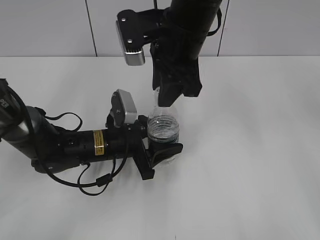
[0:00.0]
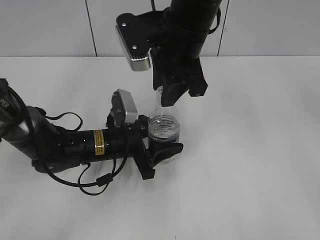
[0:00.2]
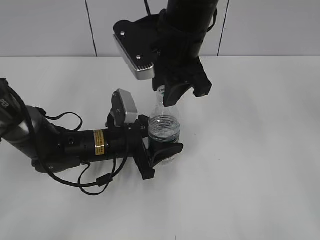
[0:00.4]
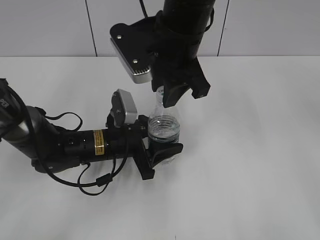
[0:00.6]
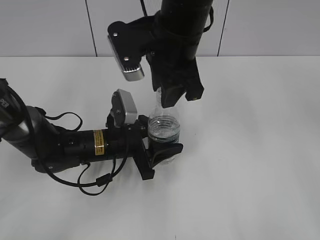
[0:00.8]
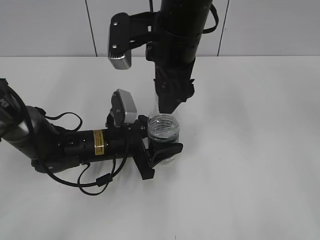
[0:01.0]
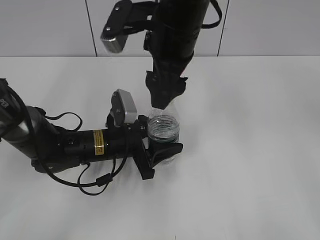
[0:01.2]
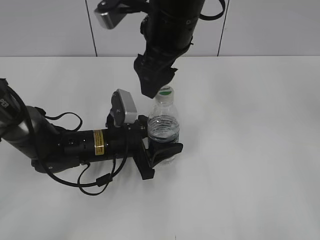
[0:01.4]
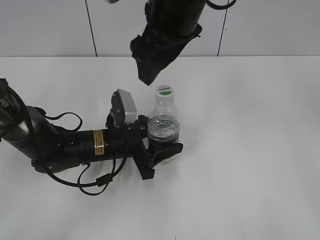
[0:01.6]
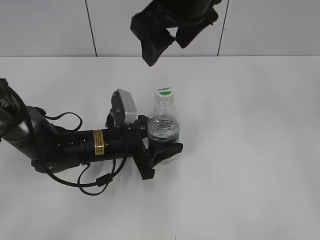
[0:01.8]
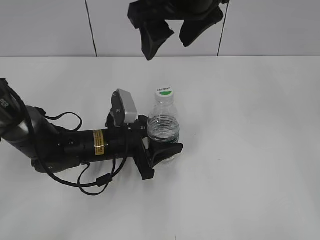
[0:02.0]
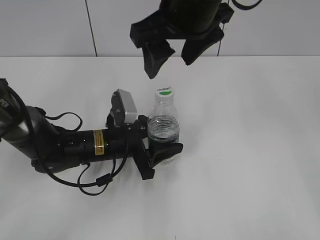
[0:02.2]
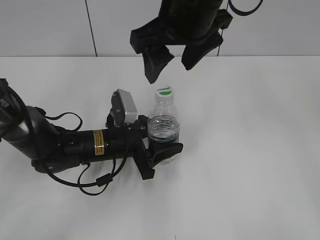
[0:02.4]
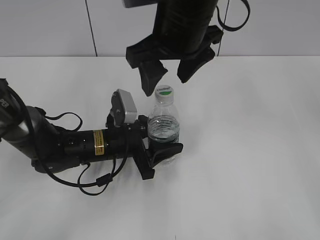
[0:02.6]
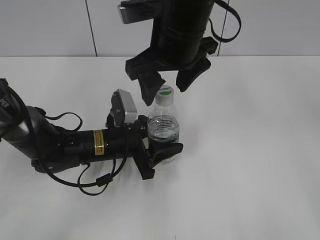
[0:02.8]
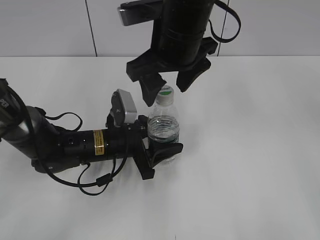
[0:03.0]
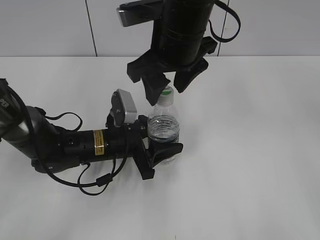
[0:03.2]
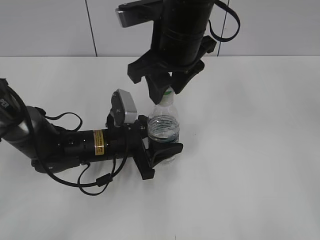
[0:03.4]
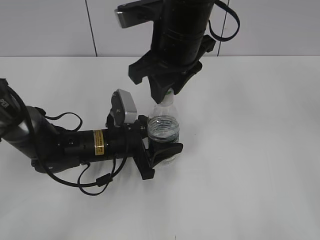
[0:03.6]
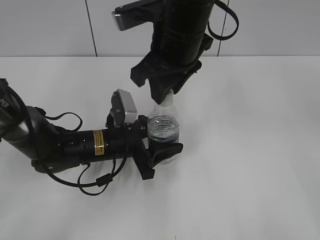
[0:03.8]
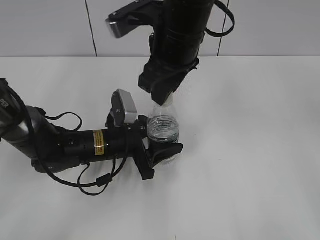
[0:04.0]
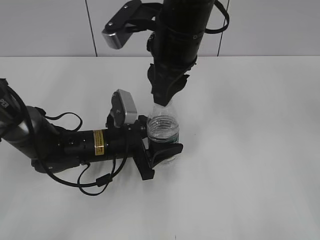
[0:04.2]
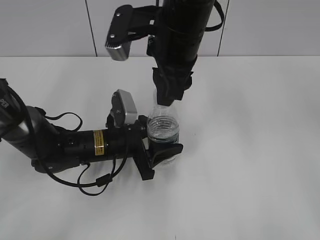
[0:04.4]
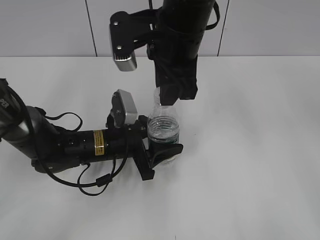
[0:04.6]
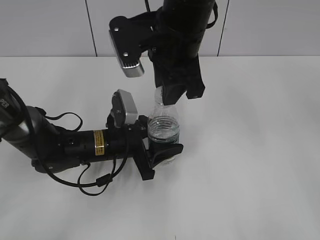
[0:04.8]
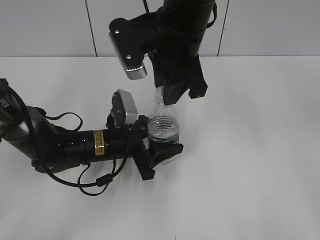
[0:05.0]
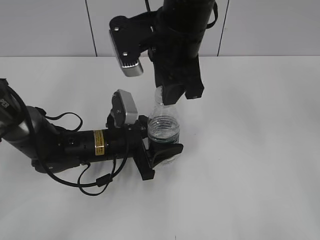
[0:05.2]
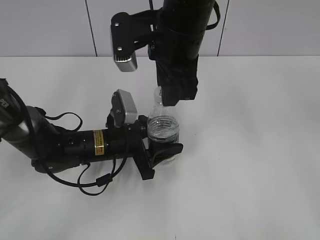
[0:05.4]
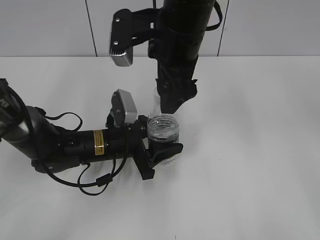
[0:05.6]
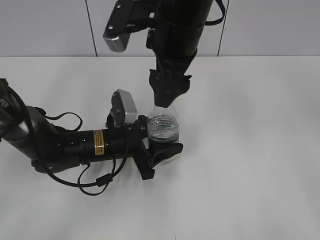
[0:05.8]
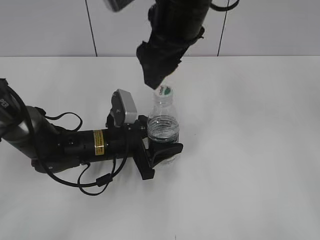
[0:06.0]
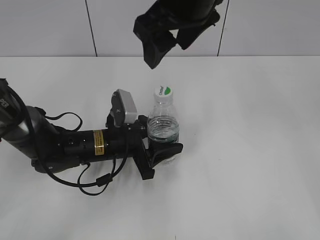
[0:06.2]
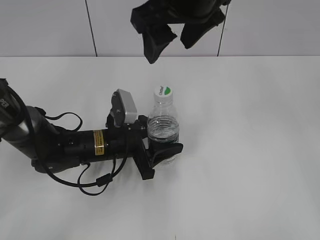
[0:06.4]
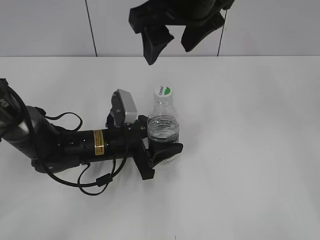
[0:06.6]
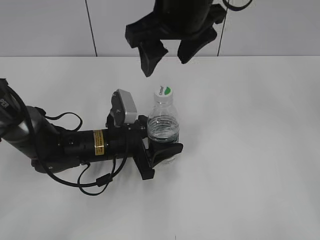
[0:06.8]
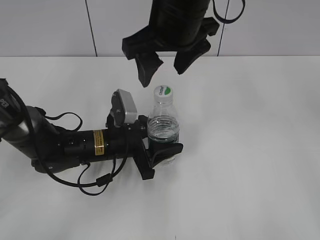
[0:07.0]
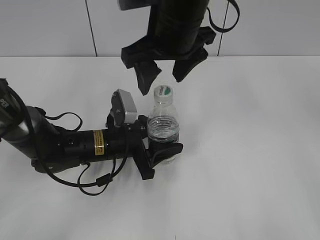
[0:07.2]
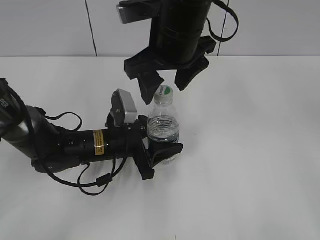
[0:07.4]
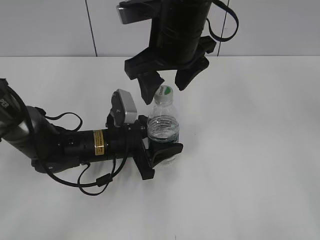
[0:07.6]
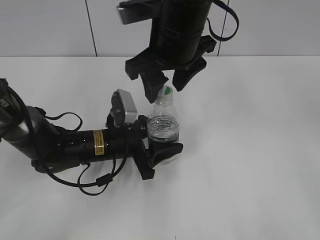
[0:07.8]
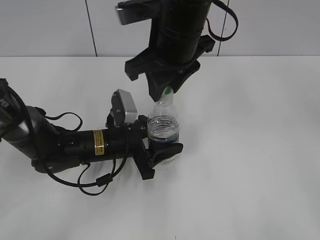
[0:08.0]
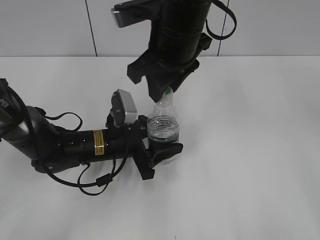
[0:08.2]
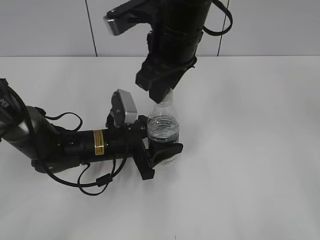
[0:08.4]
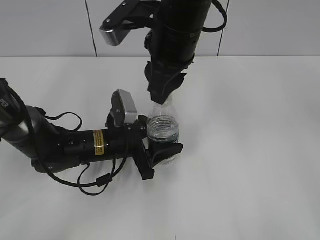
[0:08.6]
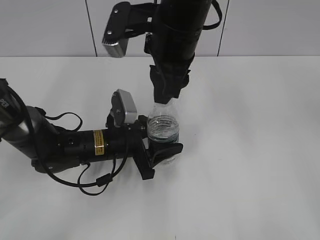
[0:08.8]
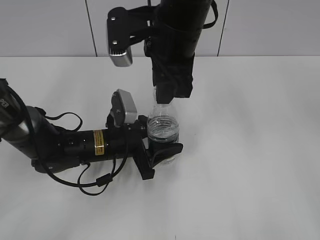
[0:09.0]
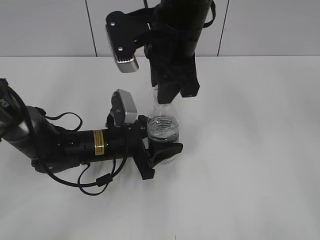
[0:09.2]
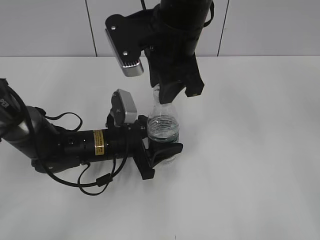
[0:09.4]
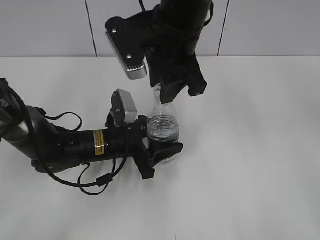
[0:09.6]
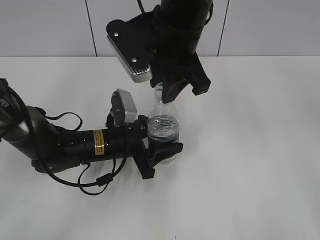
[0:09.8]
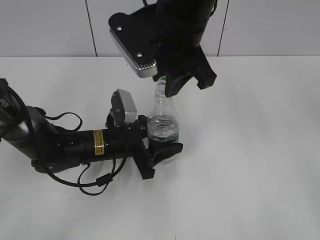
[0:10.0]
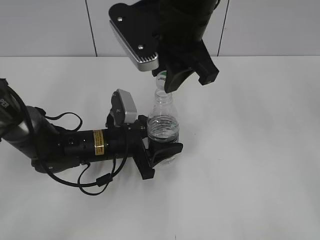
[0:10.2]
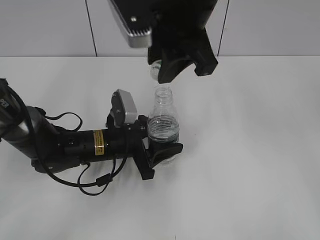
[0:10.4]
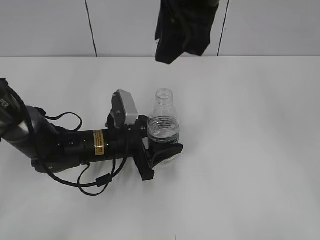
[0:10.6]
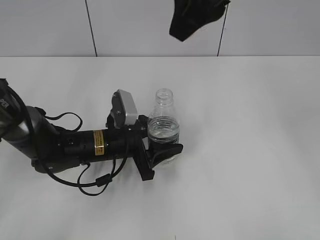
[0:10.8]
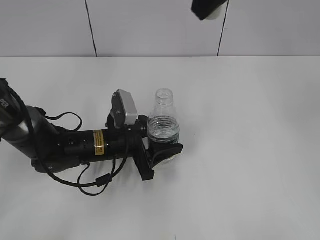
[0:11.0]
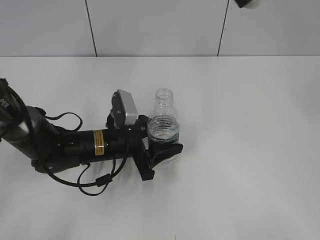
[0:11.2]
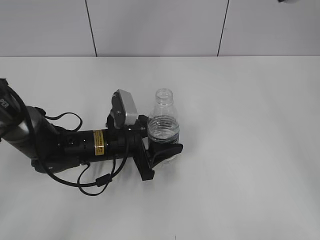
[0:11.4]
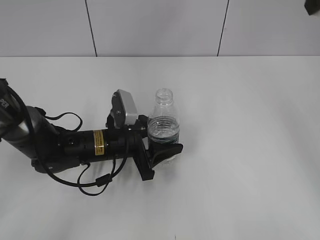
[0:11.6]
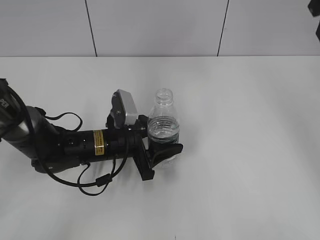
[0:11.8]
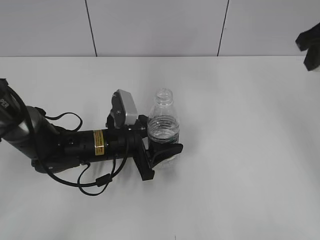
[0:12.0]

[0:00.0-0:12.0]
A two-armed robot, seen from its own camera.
Step, 0:00.0 to 0:10.2: Unscrew the bottle cap with the right gripper while holding the bottle with the left gripper.
0:00.0 to 0:01.6: The right gripper opens.
0:03.0 to 0:04.4: The right gripper closes its fingers.
0:04.4 to 0:06.0: The right gripper opens.
0:07.6 to 0:09.0: The right gripper closes.
0:09.0 to 0:10.4: The right gripper changes place by approximately 5 cm.
0:10.4 to 0:12.0: The right gripper travels to the right by about 25 cm.

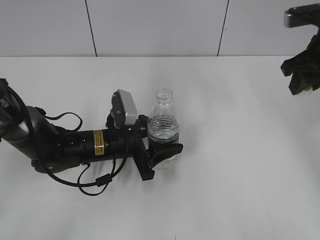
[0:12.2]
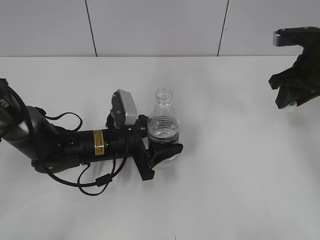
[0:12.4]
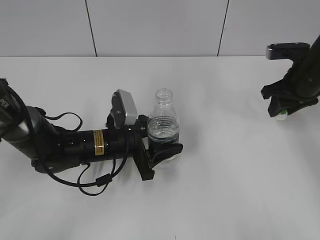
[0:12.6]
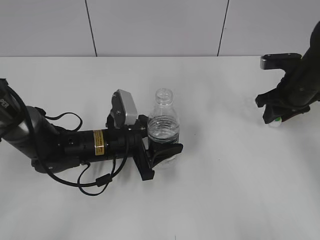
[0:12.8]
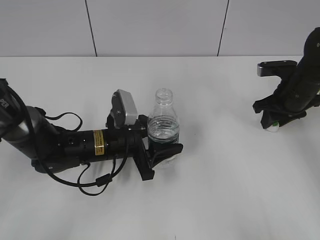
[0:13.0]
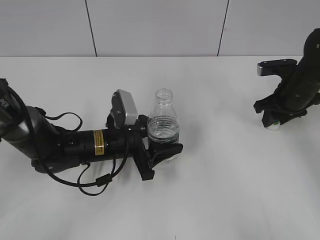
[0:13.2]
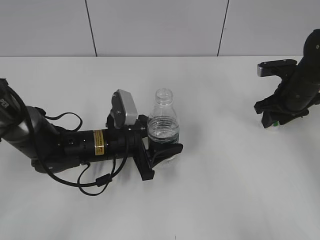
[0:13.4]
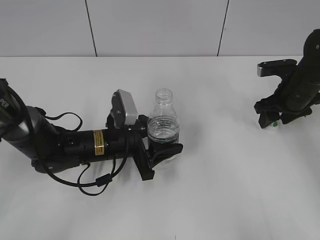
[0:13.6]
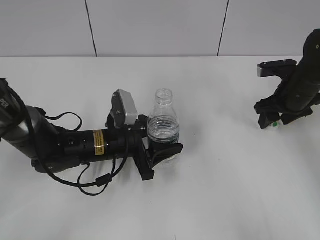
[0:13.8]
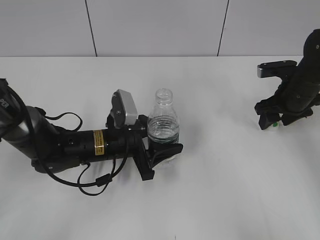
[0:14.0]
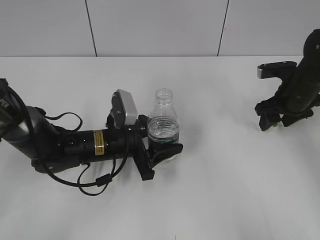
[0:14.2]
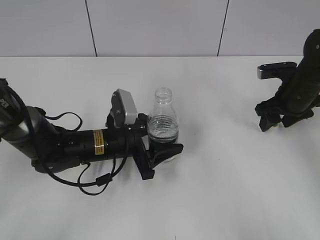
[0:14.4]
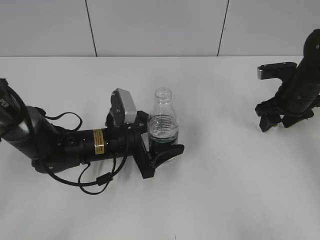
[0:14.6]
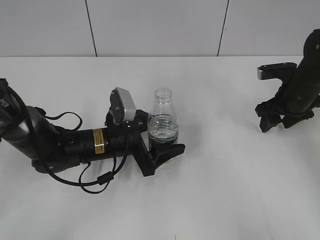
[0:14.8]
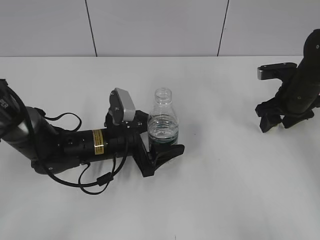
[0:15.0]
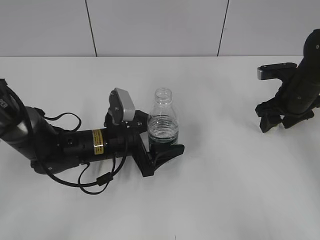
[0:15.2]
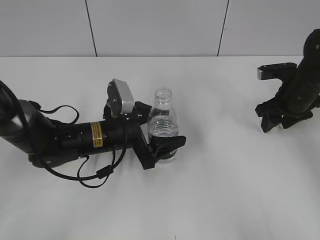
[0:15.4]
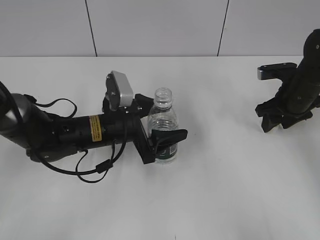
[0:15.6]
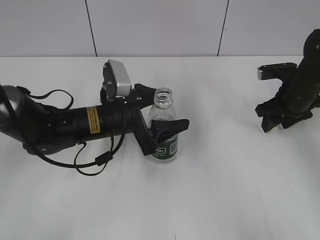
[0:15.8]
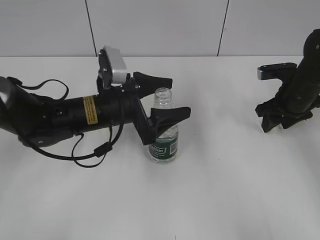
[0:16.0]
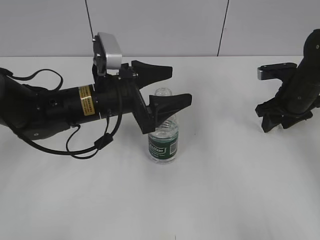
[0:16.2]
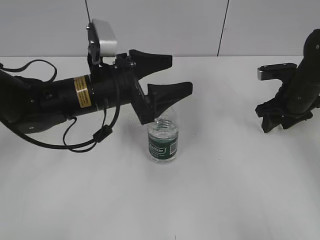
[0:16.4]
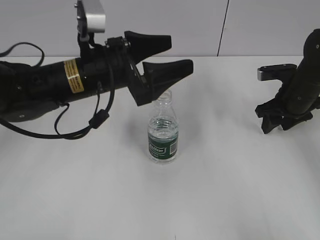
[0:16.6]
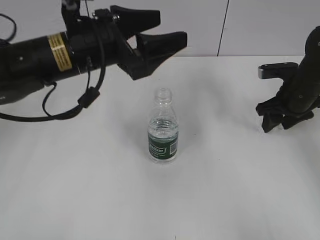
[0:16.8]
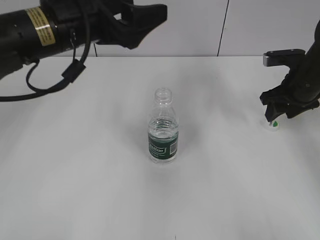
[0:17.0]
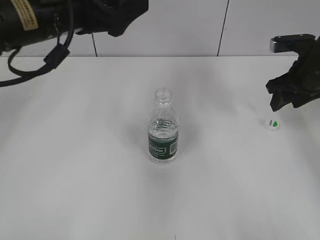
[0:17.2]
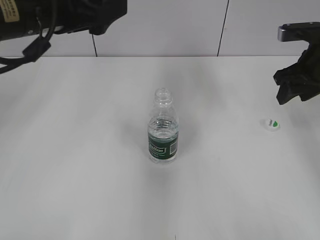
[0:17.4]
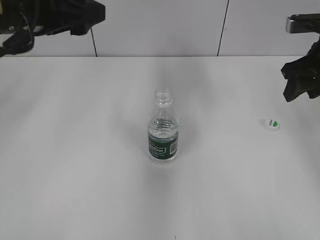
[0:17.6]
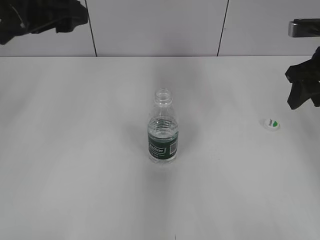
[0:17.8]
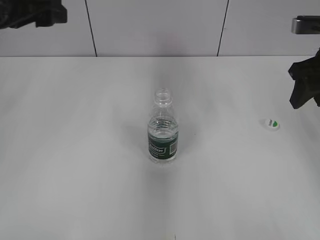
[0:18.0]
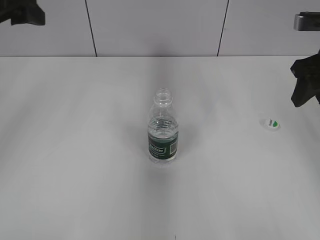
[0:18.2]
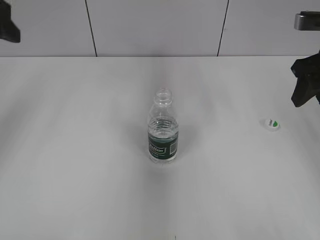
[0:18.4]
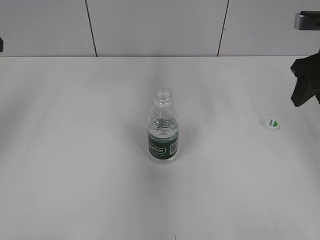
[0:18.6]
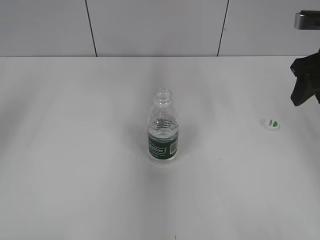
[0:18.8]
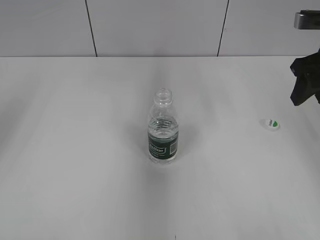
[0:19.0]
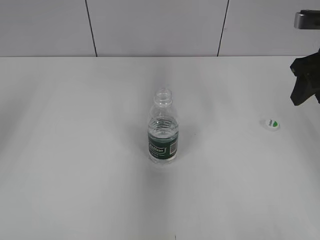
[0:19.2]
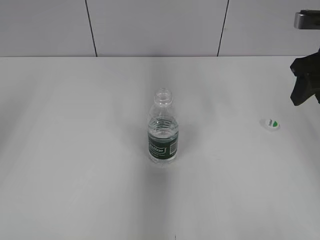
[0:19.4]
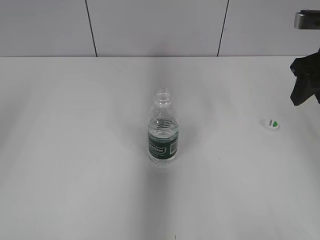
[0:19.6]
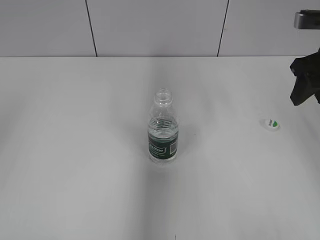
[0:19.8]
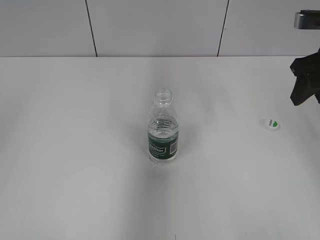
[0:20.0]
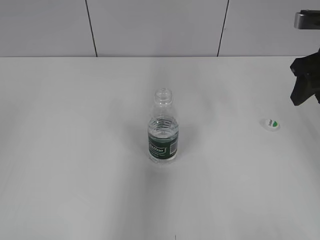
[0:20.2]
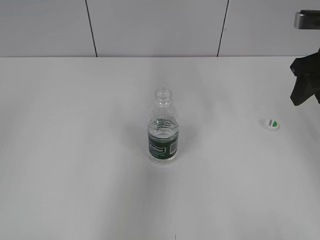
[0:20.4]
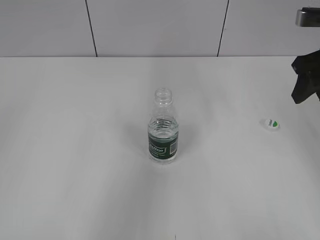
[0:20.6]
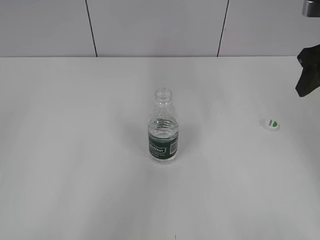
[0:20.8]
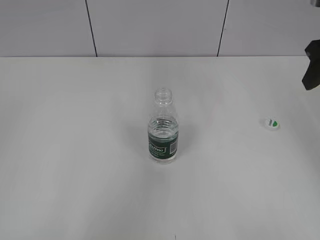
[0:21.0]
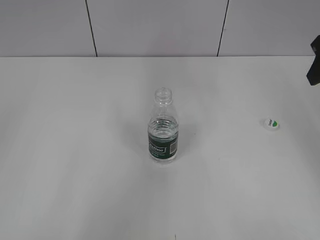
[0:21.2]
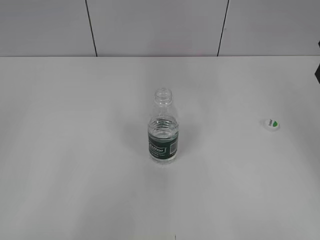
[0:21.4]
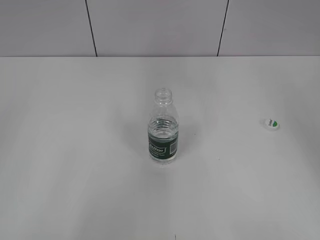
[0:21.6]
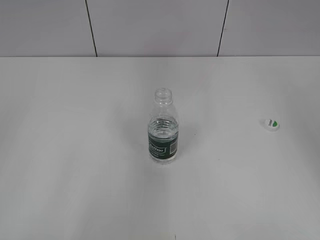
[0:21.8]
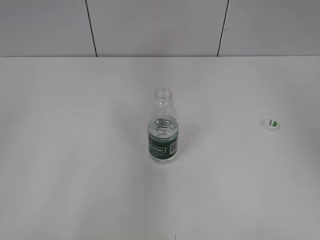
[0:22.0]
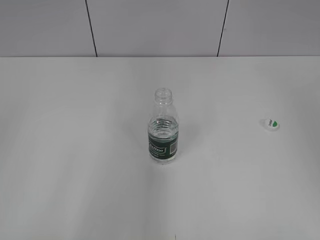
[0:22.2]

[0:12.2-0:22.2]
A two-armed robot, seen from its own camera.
Step, 0:12.2 to 0:15.2: Place the bottle cap on the table with the right gripper.
Step, 0:15.4 to 0:16.0: Place the bottle on the table with the left gripper.
0:12.2 to 0:13.6: The right gripper travels downward by roughly 15 cm, and opens its fingers.
0:13.6 to 0:15.0: The left gripper opens up.
0:15.0 to 0:16.4: The left gripper moves upward, about 10 cm.
0:16.4 to 0:18.0: The left gripper heads upward and to the left, covering some 20 cm. Meanwhile the right gripper is displaced upward and backward by roughly 15 cm.
0:18.0 to 0:19.4: The left gripper shifts roughly 15 cm to the left, backward and upward.
0:19.4 to 0:20.8: The left gripper is displaced backward by about 25 cm.
0:20.8 to 0:22.2: The right gripper goes approximately 20 cm backward and upward.
